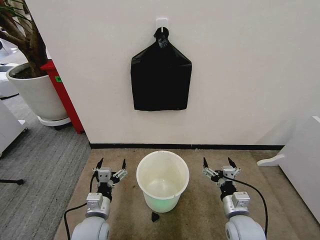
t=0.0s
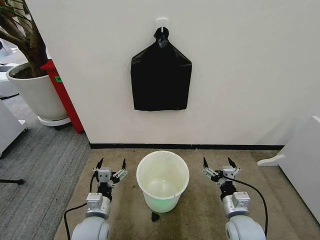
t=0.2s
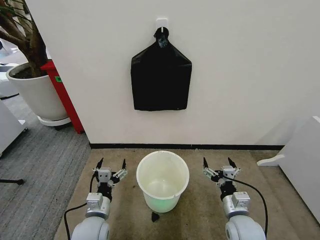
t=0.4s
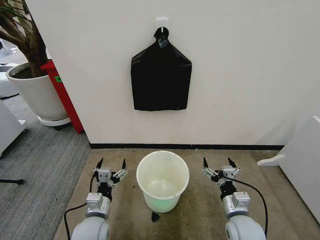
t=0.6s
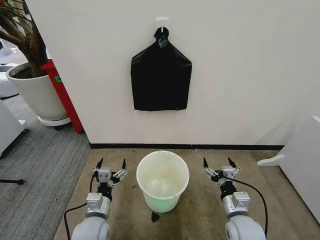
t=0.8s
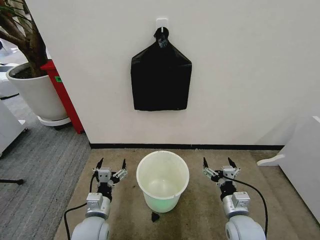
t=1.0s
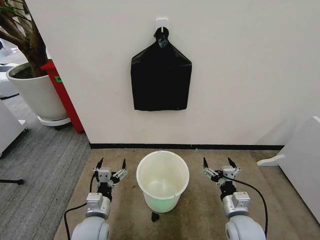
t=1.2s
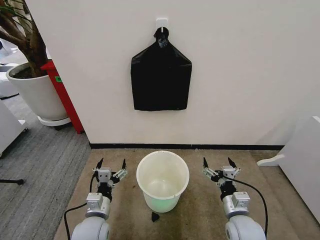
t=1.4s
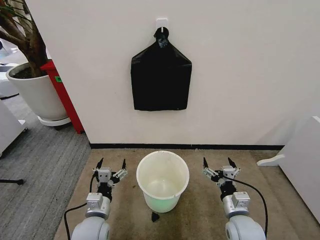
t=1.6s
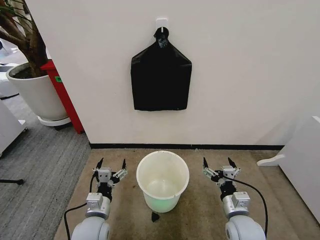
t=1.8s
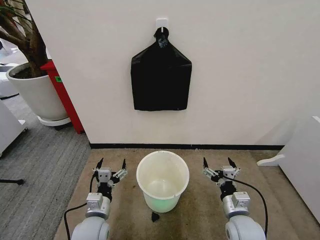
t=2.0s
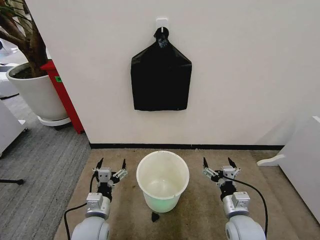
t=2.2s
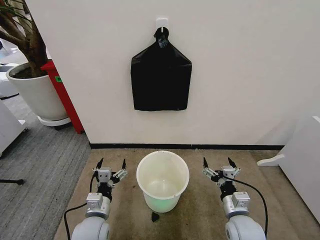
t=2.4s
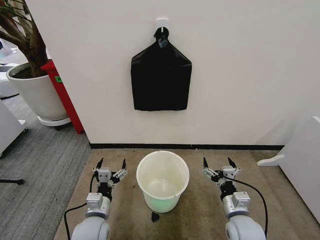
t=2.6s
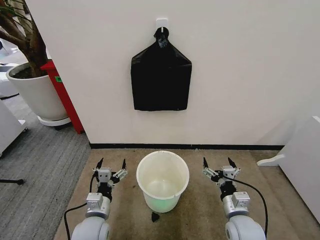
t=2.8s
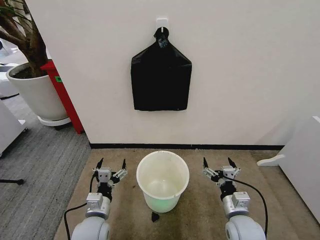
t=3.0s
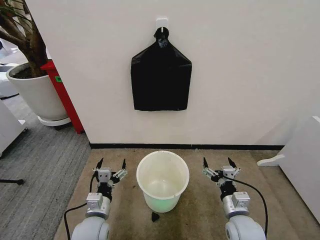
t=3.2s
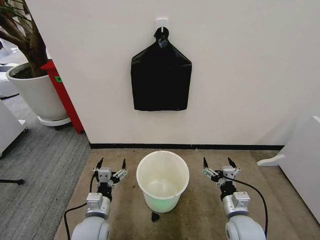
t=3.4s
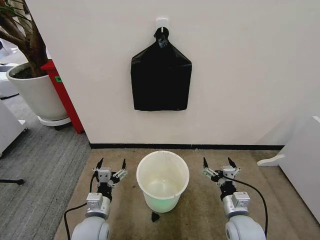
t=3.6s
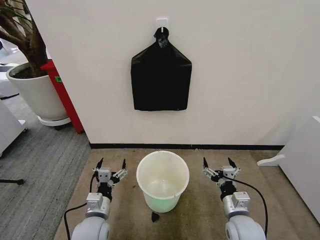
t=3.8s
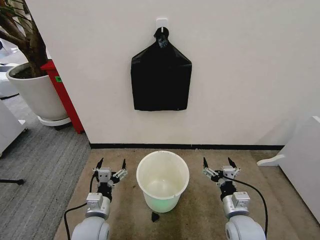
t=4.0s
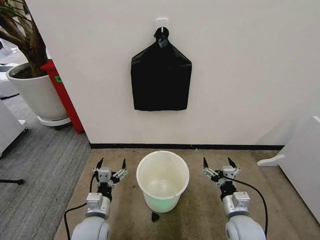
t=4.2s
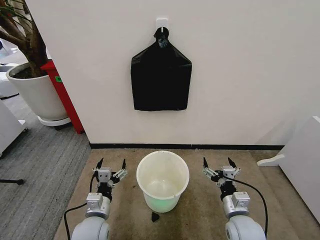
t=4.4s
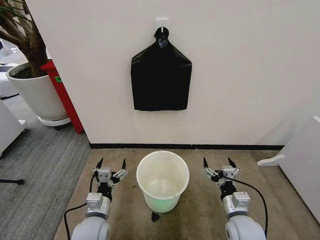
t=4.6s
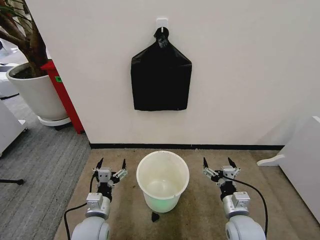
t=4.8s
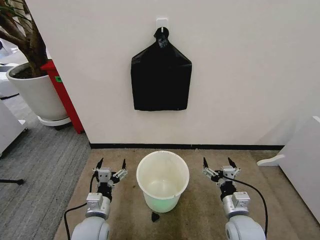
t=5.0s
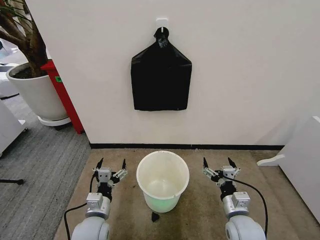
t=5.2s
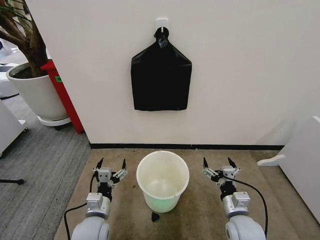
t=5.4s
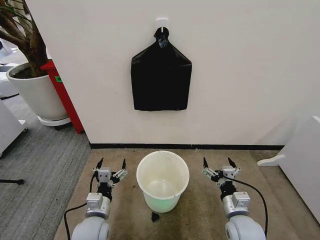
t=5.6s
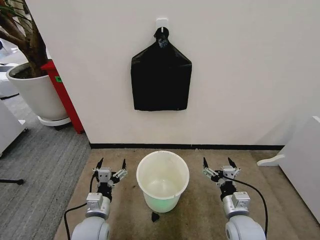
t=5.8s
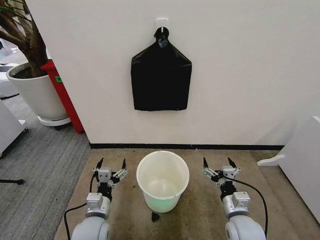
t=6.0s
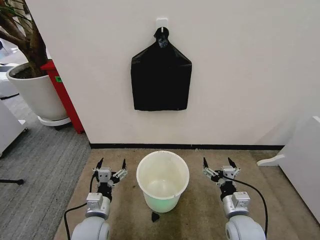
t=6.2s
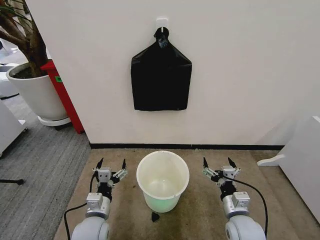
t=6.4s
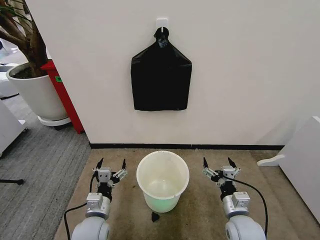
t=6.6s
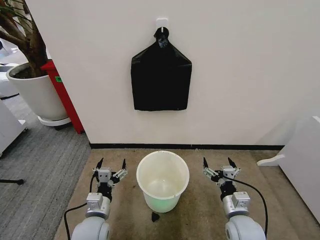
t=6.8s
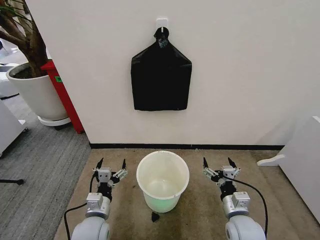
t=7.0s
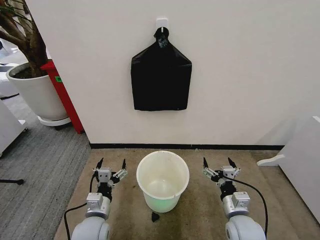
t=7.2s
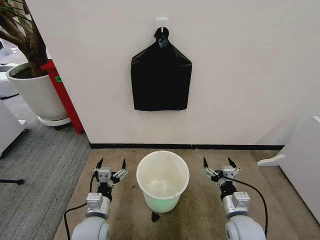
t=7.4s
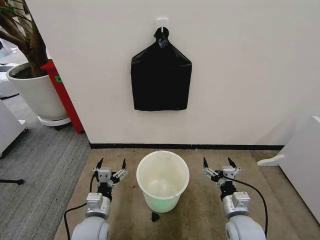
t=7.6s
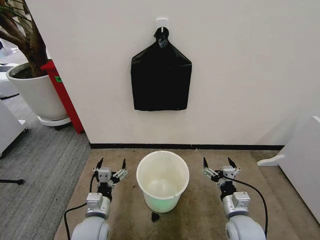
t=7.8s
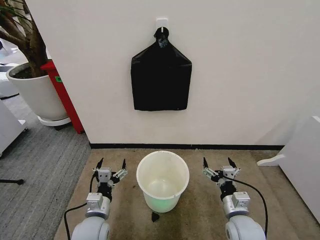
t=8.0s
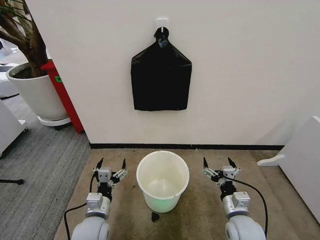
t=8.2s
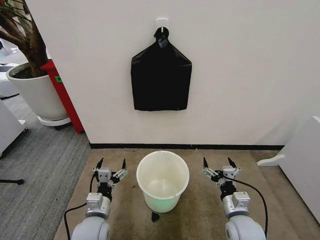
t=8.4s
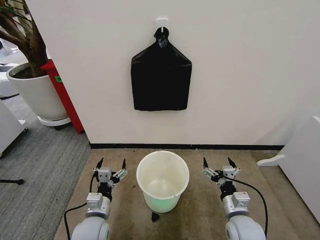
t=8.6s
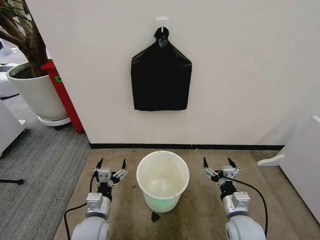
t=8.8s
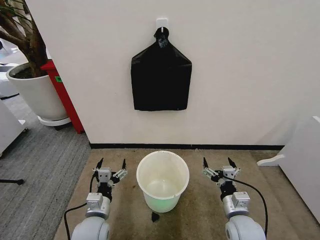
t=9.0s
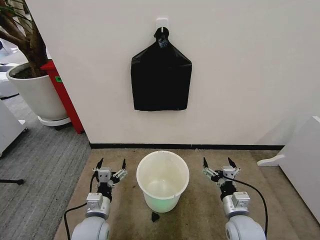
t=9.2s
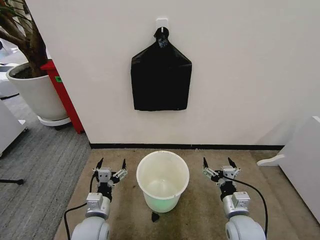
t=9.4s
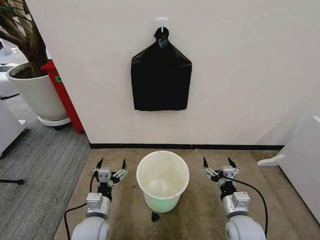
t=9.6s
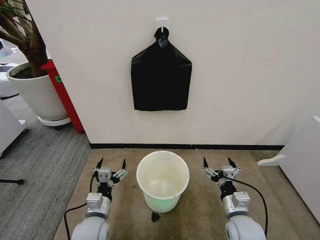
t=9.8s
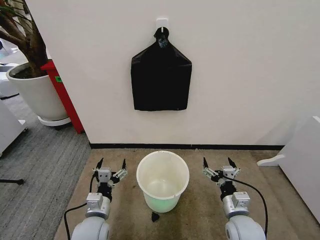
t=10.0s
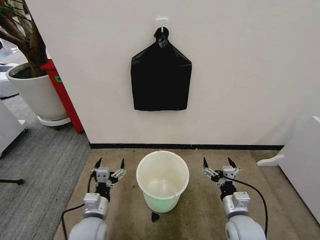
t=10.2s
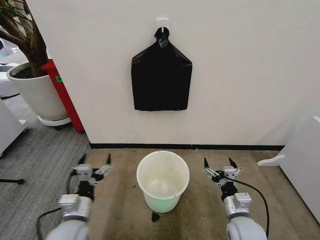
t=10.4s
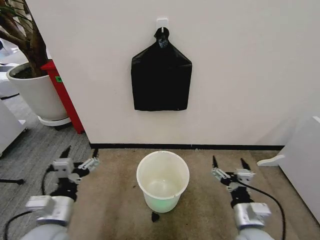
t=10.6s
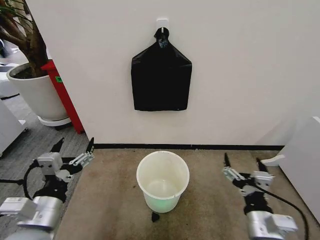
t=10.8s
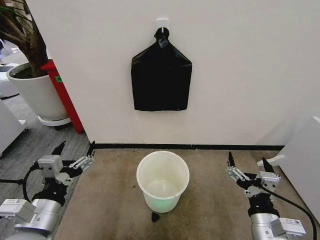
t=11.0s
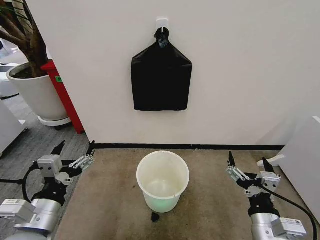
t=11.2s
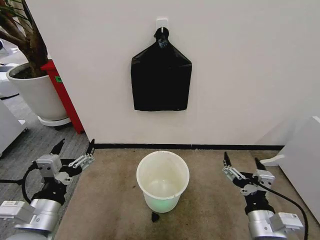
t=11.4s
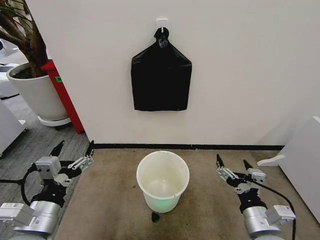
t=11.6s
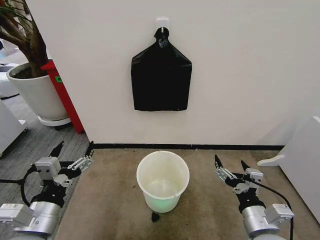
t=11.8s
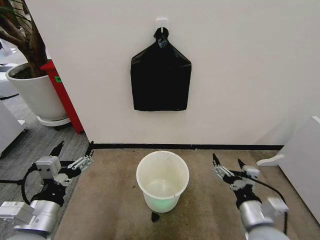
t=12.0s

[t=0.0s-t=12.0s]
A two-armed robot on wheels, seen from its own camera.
Task of the whole recording: Place the garbage bag over the trash bin.
t=1.6s to t=9.0s: The two grippers keep their place.
t=9.0s to t=10.4s: The left gripper shifts approximately 5 cm upward.
t=10.4s to t=12.0s: Both grippers travel together upward, about 10 cm.

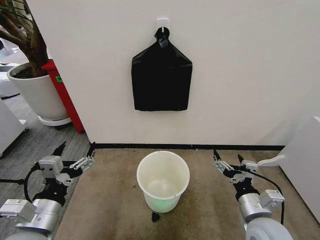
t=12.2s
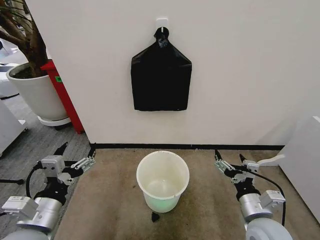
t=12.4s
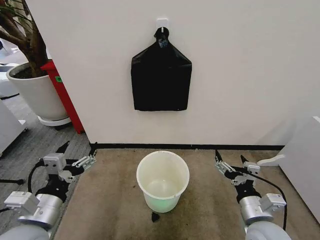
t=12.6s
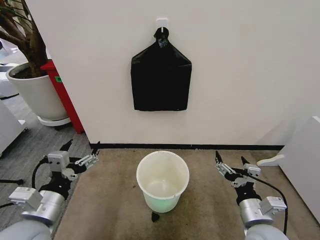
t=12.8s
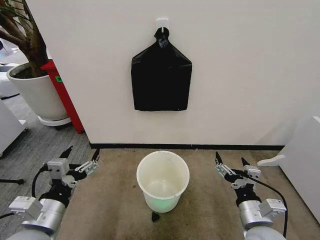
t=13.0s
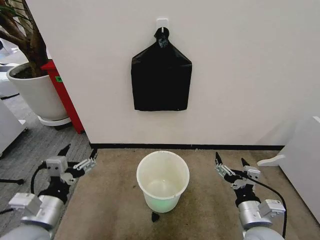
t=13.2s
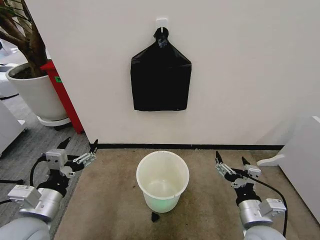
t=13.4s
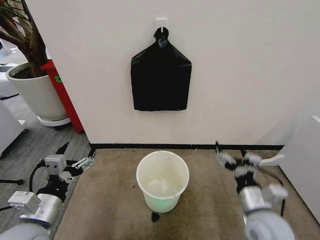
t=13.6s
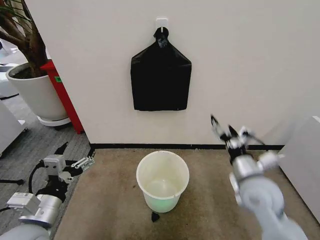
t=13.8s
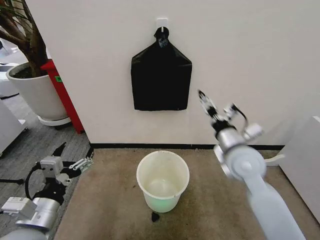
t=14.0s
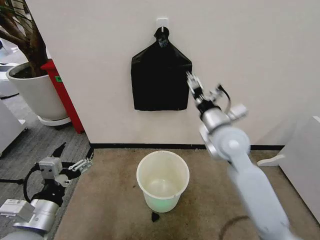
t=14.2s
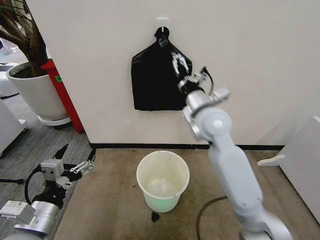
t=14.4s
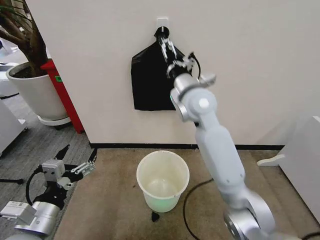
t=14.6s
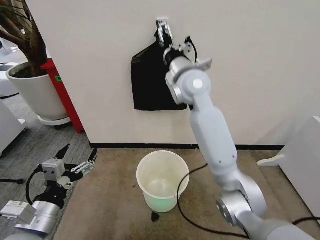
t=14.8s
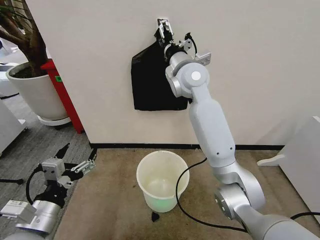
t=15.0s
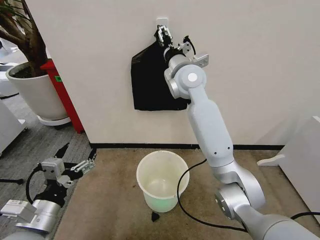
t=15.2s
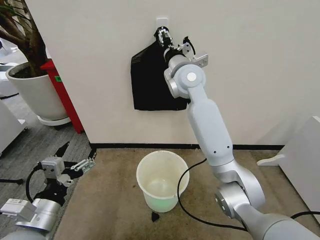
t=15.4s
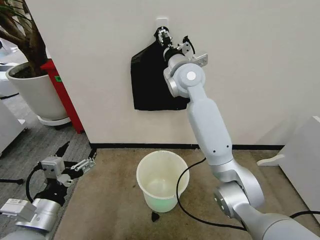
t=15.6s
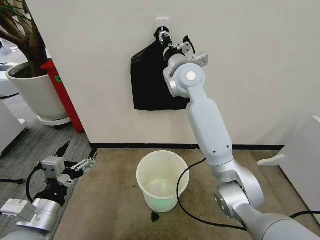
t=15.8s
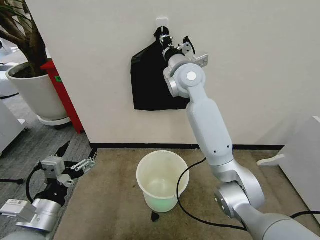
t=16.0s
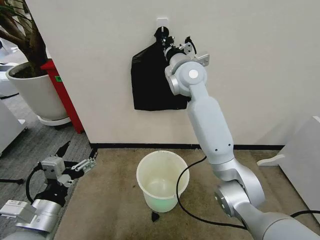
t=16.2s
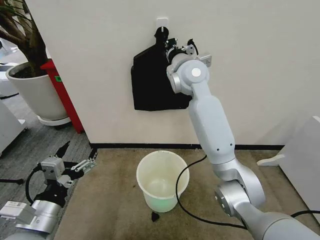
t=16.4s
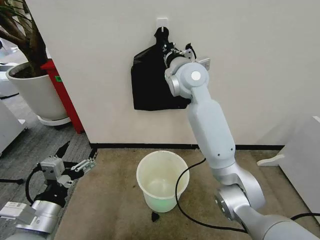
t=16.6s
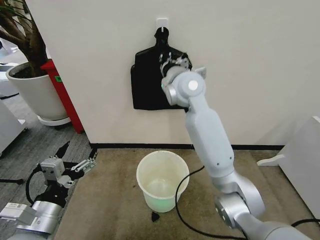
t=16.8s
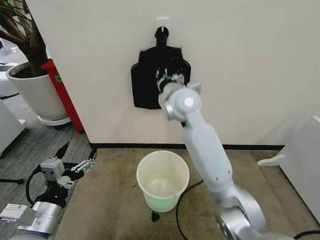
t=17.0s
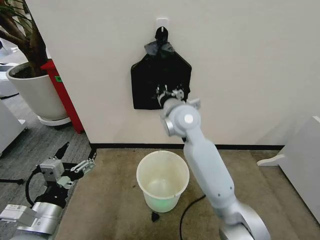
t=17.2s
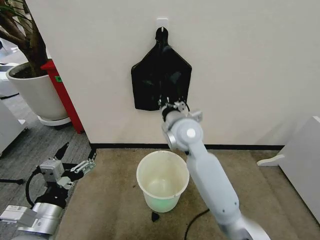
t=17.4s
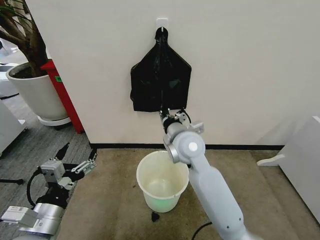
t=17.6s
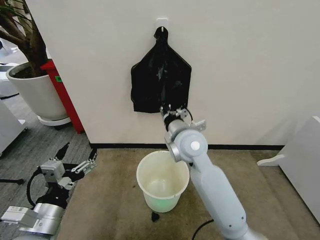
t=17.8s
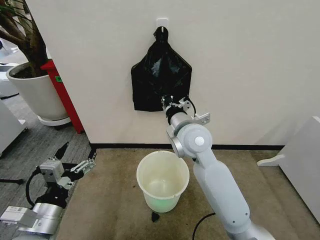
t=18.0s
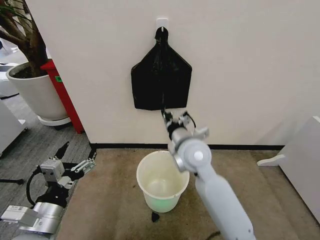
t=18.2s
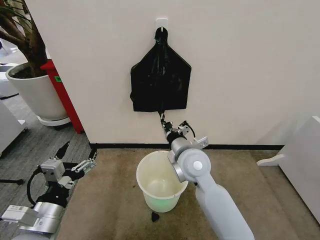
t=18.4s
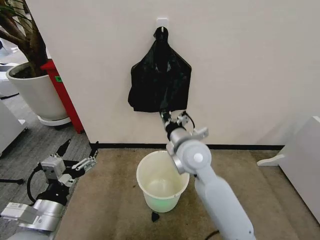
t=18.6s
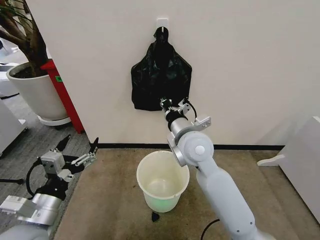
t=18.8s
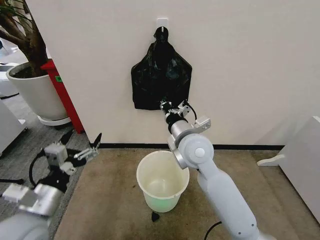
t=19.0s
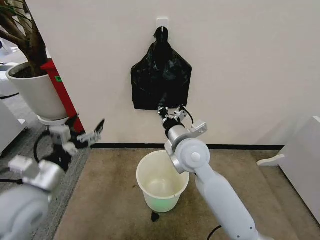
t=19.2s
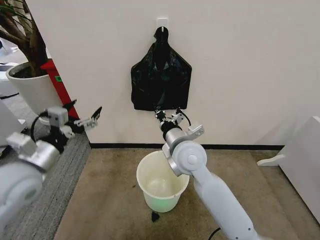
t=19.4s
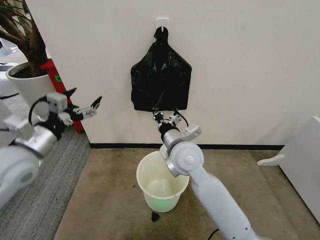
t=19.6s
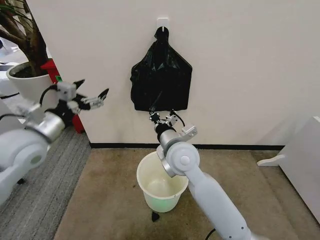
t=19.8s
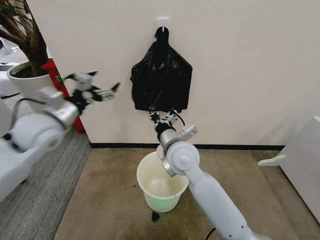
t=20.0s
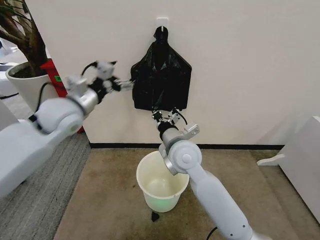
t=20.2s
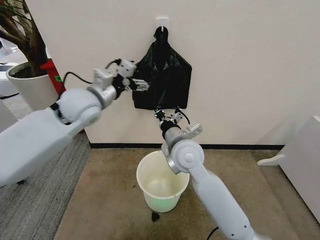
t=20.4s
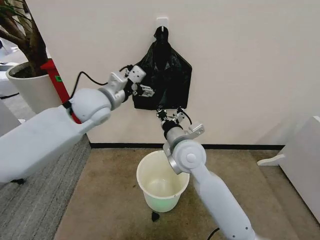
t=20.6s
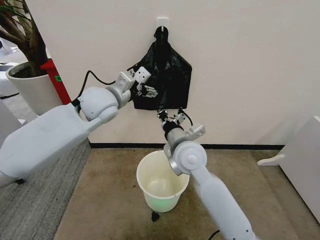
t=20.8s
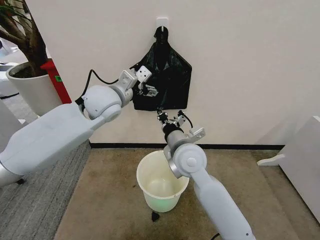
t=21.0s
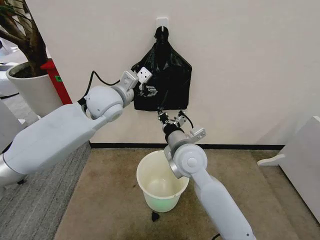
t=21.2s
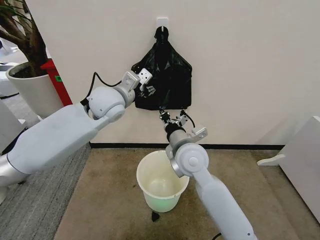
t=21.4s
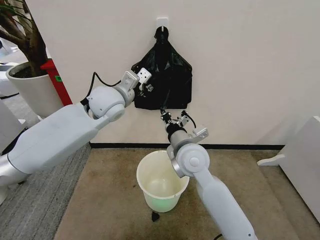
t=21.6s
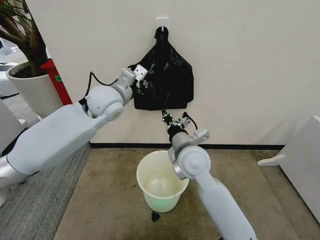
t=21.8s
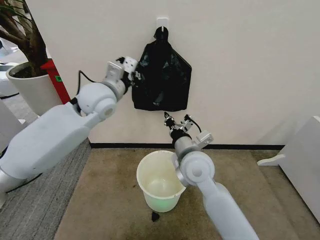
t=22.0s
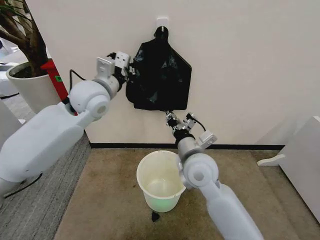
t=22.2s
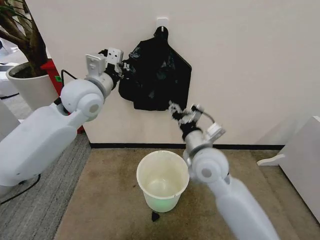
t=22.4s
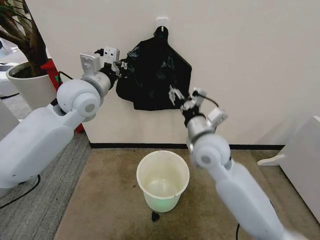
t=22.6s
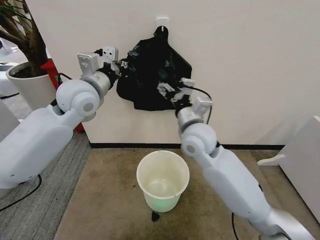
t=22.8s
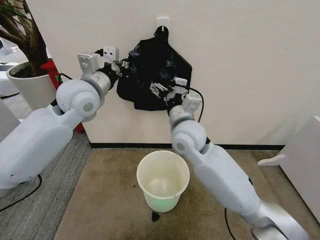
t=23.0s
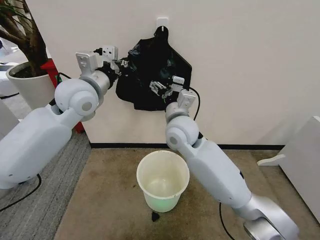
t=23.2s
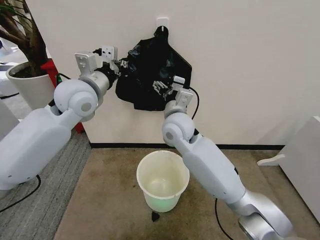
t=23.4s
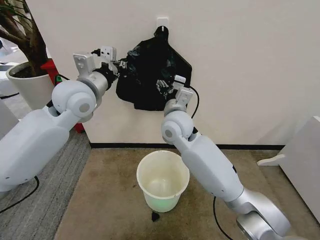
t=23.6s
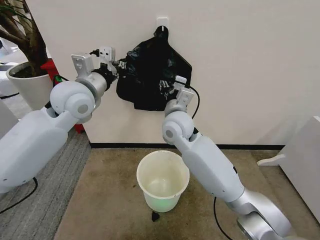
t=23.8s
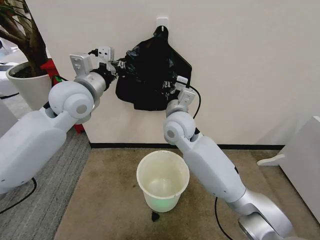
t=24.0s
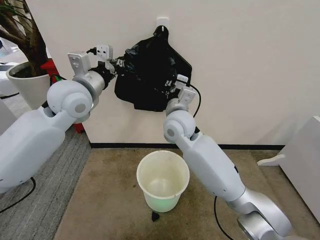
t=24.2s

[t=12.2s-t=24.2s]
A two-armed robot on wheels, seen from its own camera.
Task of the whole recording: Place the garbage bag over the trash bin.
t=12.2s to t=13.8s: The right gripper is displaced forward and upward by roughly 10 cm.
t=13.8s to t=15.2s: The right gripper moves forward, upward and to the left, roughly 35 cm.
t=15.2s to t=16.6s: The right gripper closes up.
t=16.6s to t=18.2s: The right gripper travels downward and backward by some 20 cm.
t=18.2s to t=19.8s: The left gripper goes approximately 25 cm forward and upward.
t=19.8s to t=21.2s: The left gripper heads to the right and forward, covering roughly 20 cm.
t=21.2s to t=22.6s: The right gripper goes about 5 cm to the right, and opens its fingers, while the left gripper travels to the left by about 5 cm, and closes its fingers.
t=22.6s to t=24.2s: The right gripper is displaced to the left and forward by roughly 10 cm, and closes up.
